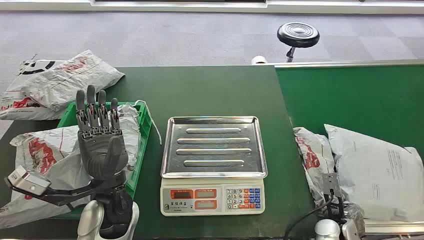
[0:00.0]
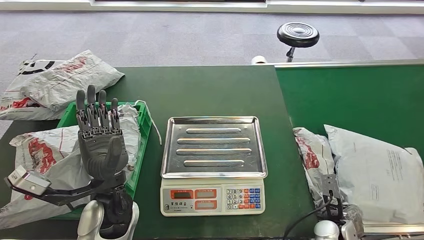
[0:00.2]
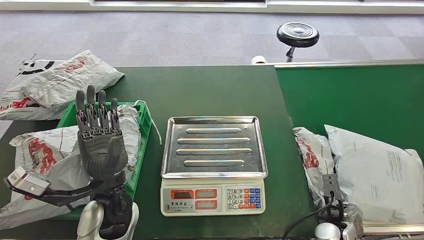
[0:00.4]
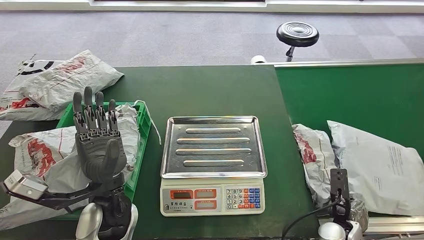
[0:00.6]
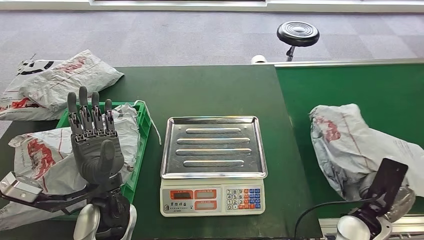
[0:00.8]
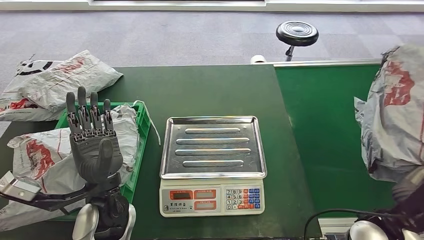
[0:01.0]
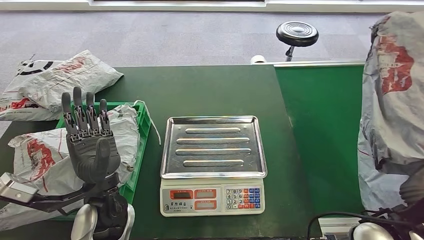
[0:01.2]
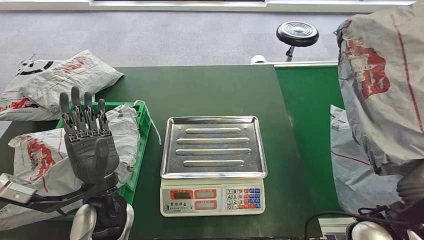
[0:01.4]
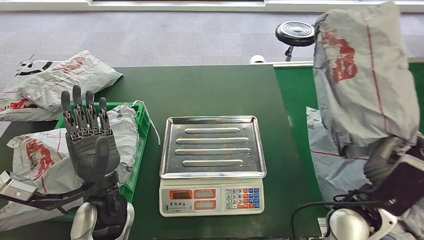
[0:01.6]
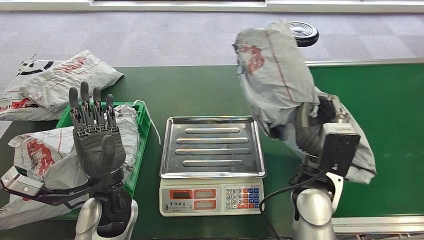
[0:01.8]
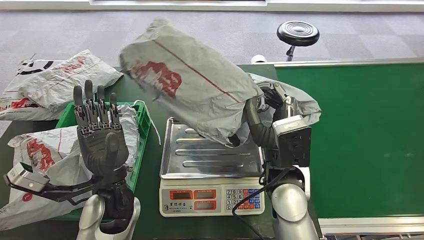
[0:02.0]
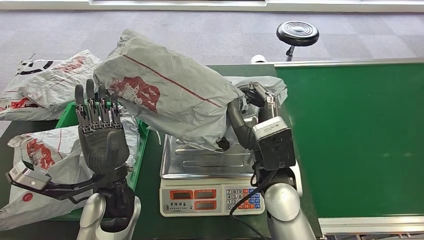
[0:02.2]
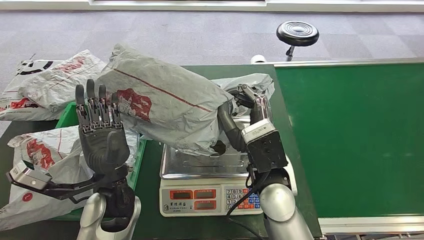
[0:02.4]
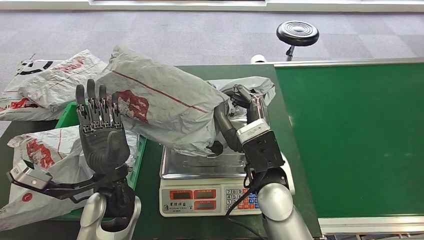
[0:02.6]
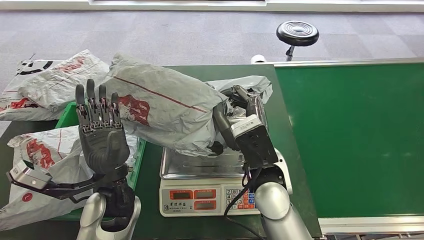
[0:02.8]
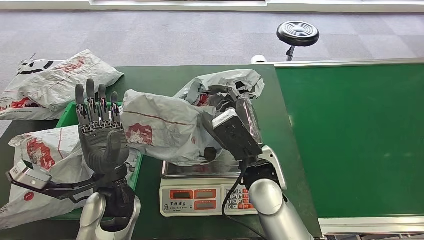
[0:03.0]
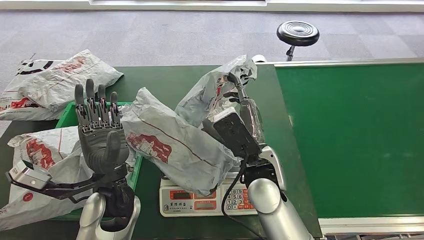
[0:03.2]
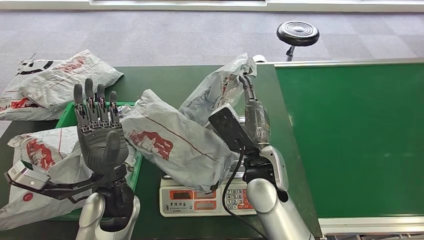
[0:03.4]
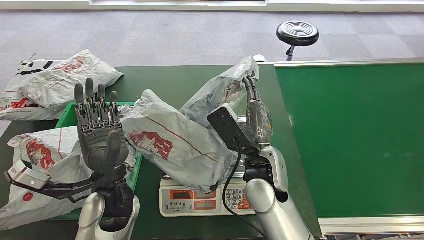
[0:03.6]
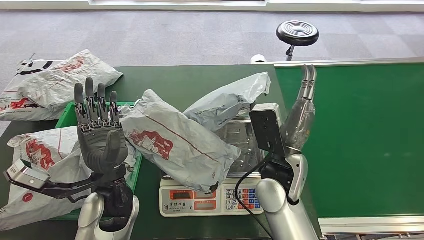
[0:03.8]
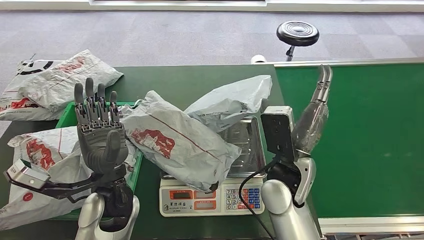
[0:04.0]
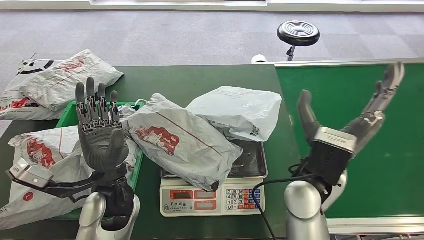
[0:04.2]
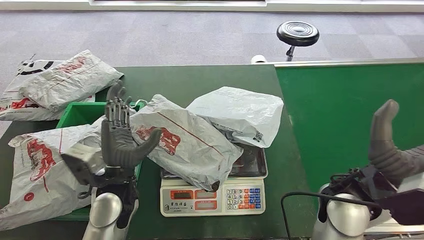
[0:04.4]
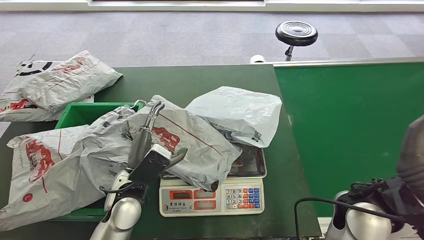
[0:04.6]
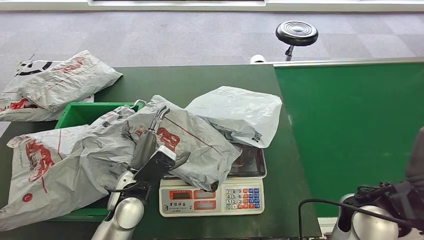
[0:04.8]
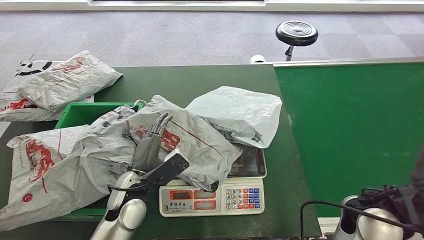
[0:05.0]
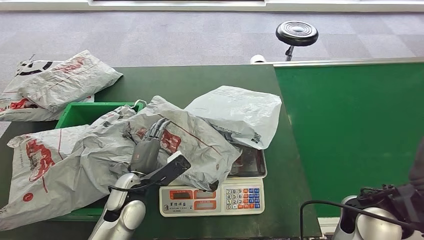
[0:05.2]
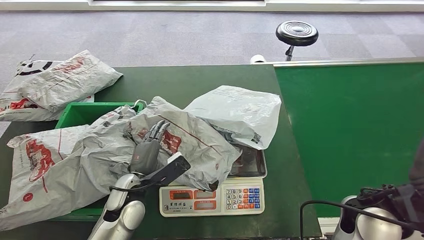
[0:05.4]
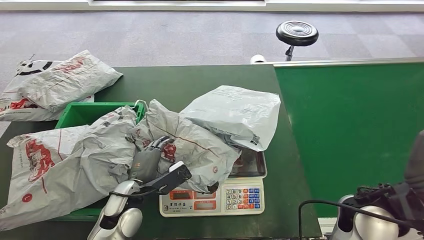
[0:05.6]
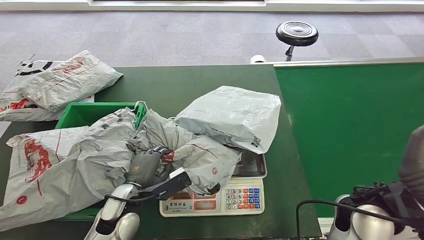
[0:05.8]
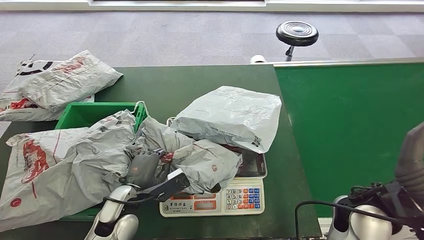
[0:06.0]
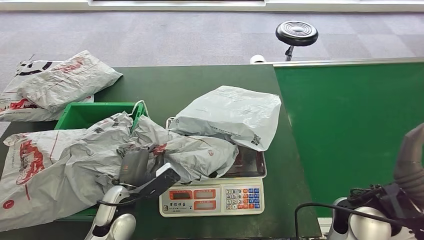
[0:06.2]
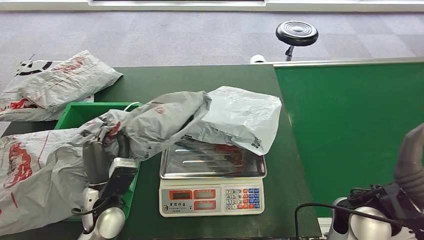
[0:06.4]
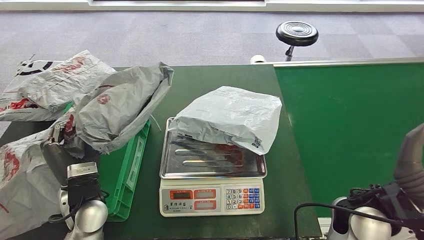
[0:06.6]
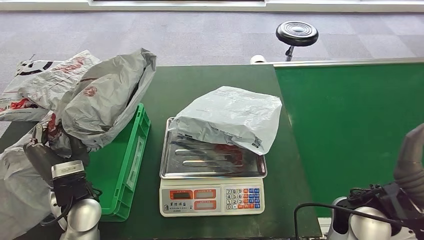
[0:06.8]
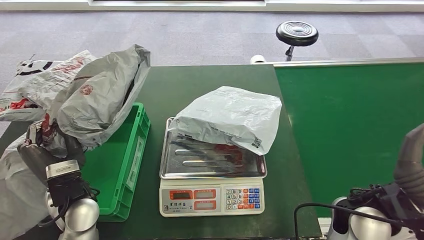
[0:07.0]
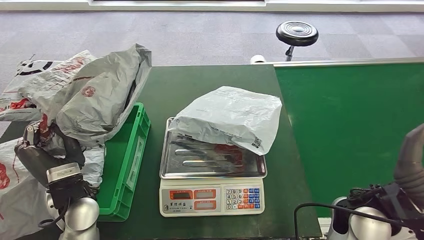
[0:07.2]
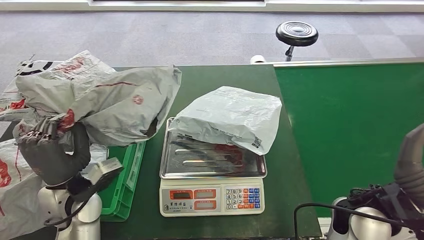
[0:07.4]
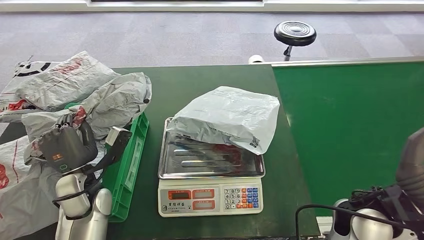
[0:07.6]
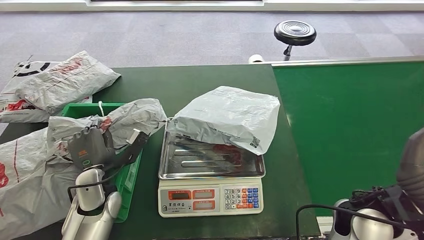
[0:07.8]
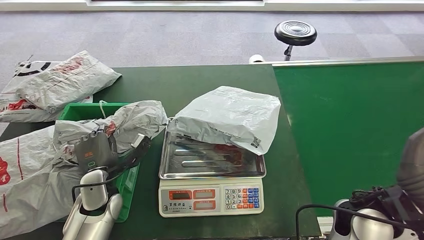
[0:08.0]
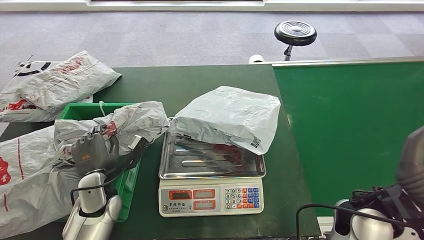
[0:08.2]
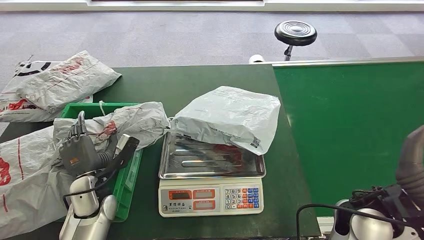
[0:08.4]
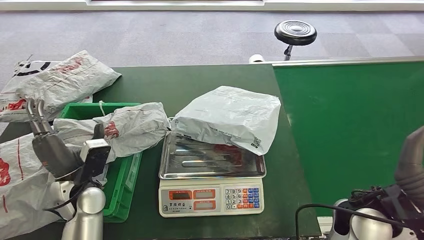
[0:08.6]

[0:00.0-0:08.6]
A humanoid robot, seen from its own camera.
Step, 0:00.0 to 0:01.4: Take the parcel off the conveyor belt.
Step, 0:01.6 to 0:03.4: Place the parcel onto the inbound machine.
Step, 0:03.6 to 0:06.4: Pick up the parcel from the inbound machine.
Step, 0:06.6 to 0:08.6: Put the parcel inside the courier box.

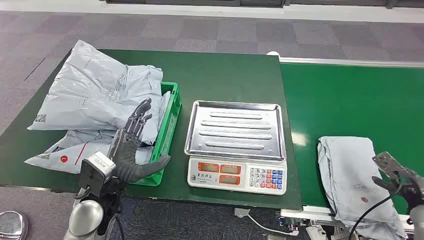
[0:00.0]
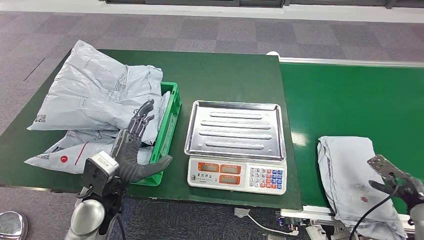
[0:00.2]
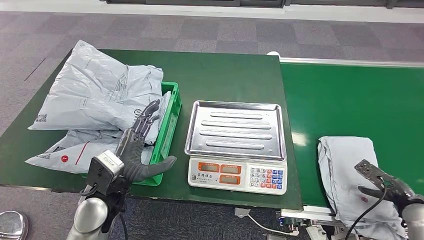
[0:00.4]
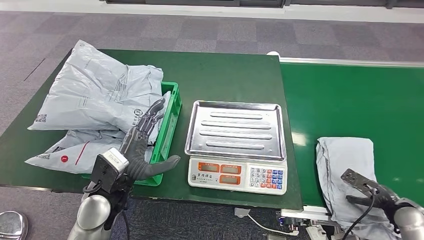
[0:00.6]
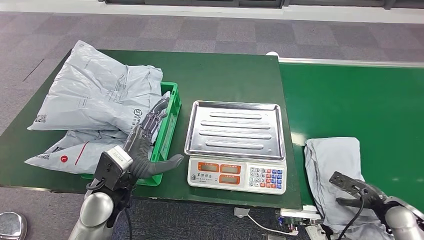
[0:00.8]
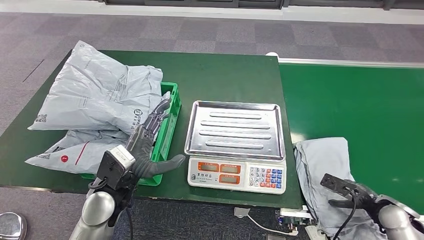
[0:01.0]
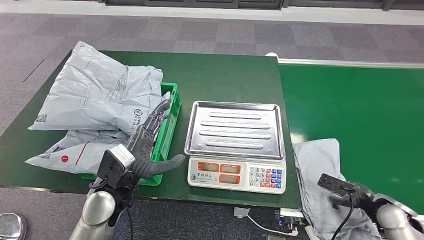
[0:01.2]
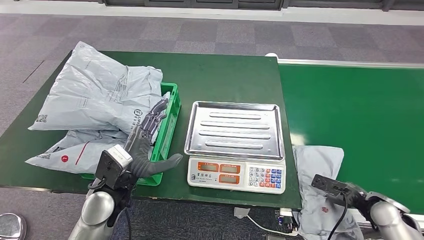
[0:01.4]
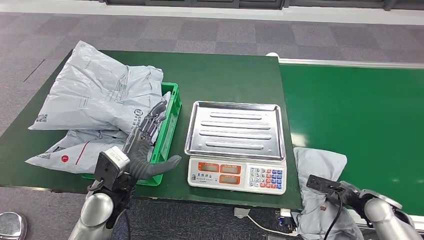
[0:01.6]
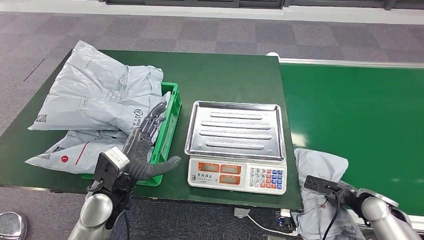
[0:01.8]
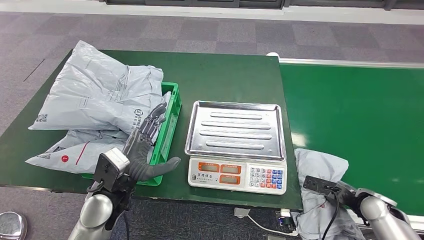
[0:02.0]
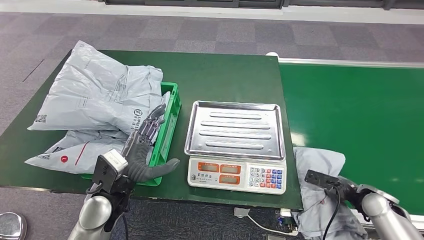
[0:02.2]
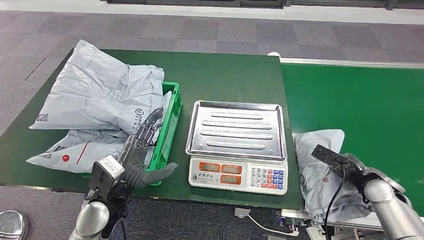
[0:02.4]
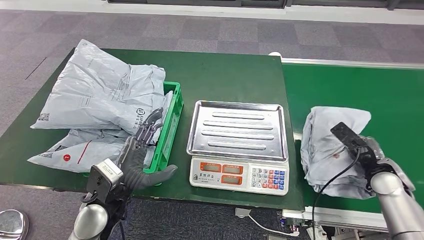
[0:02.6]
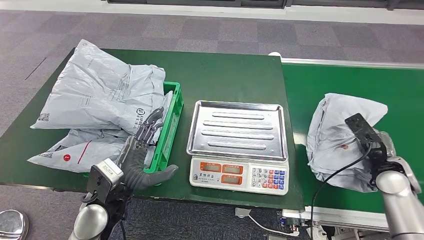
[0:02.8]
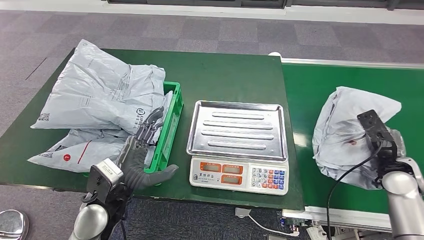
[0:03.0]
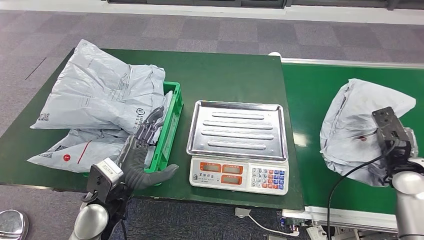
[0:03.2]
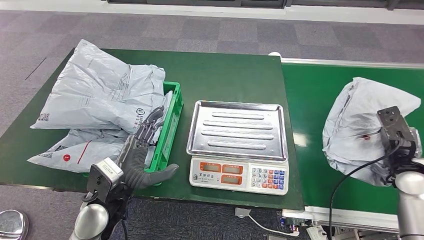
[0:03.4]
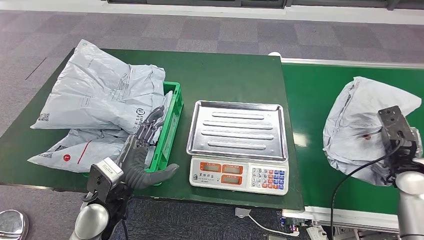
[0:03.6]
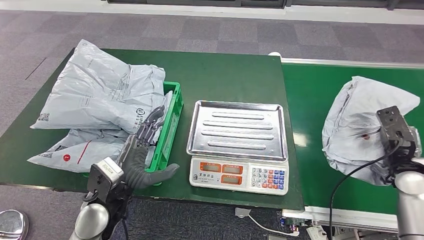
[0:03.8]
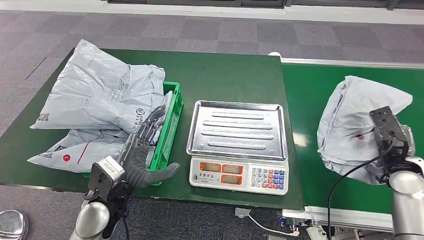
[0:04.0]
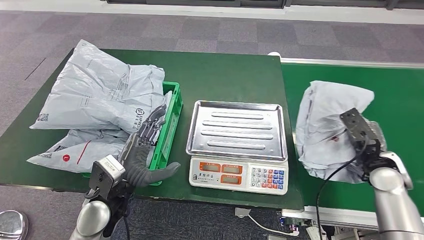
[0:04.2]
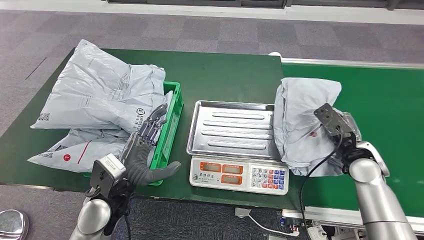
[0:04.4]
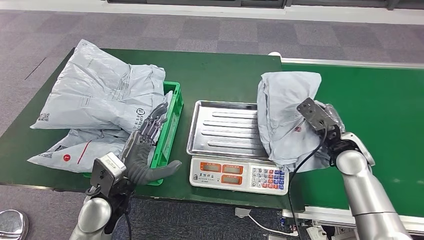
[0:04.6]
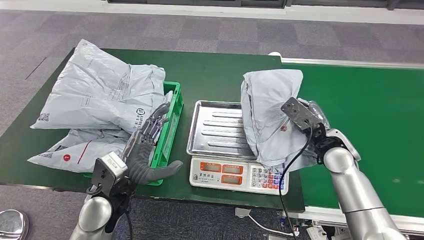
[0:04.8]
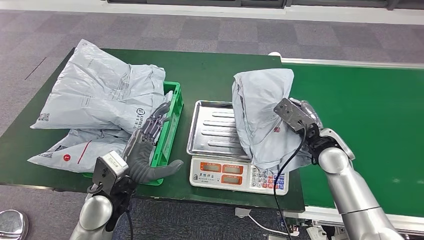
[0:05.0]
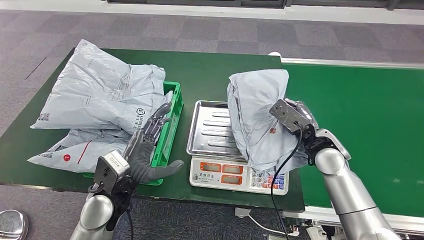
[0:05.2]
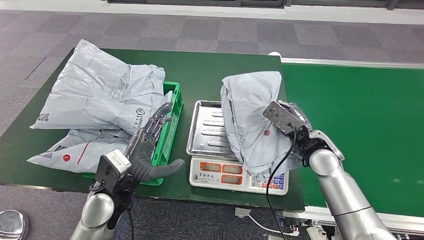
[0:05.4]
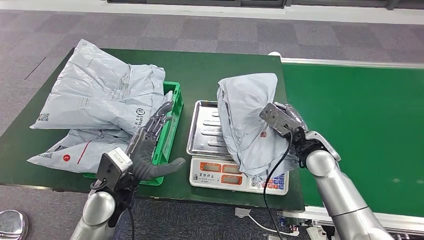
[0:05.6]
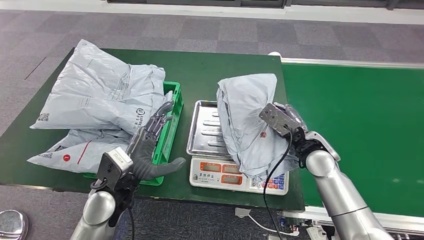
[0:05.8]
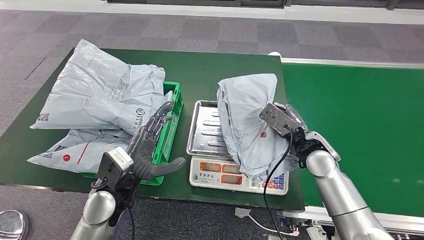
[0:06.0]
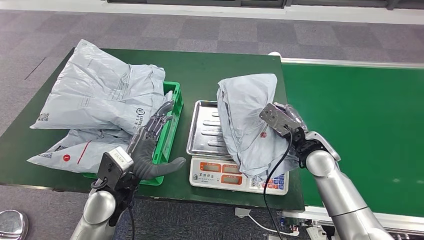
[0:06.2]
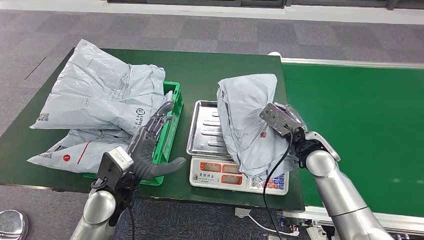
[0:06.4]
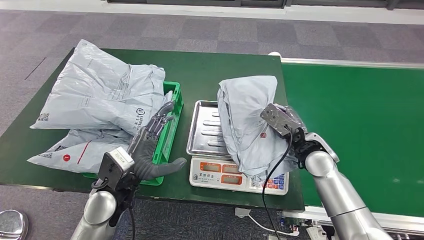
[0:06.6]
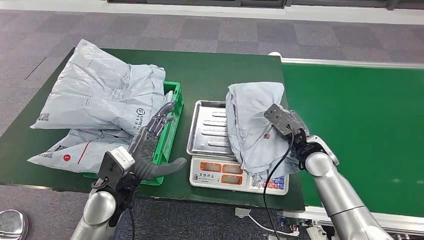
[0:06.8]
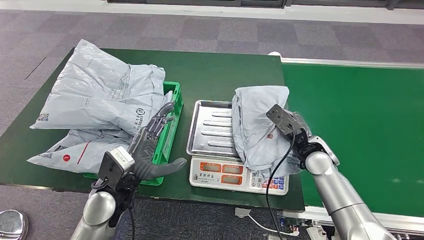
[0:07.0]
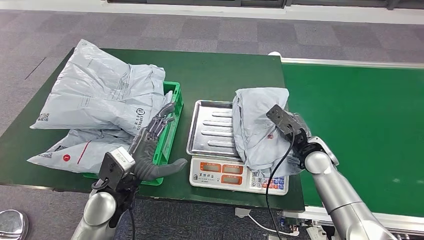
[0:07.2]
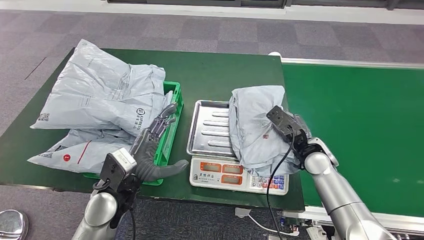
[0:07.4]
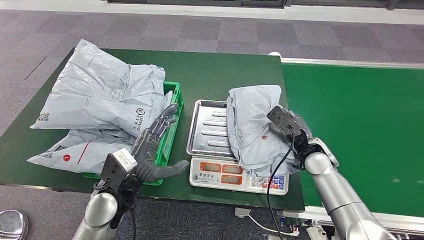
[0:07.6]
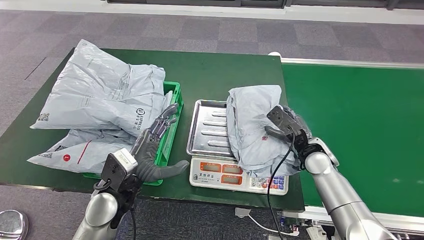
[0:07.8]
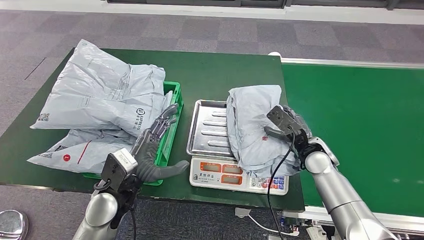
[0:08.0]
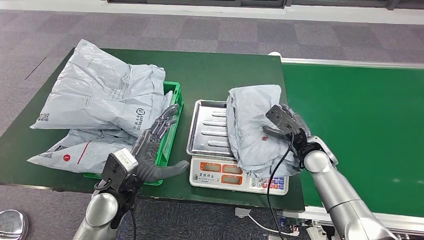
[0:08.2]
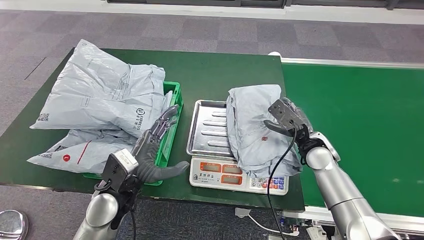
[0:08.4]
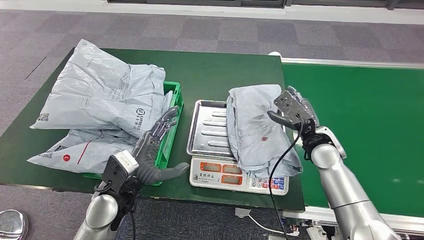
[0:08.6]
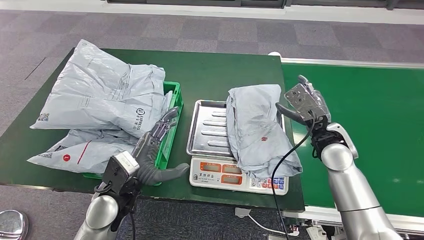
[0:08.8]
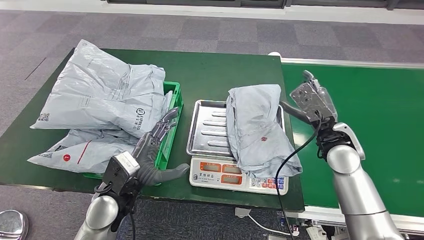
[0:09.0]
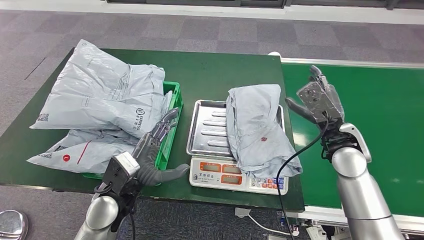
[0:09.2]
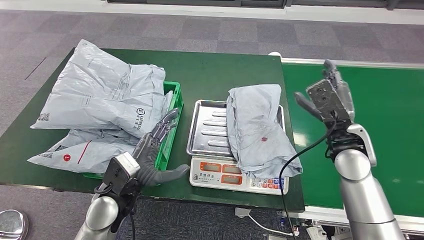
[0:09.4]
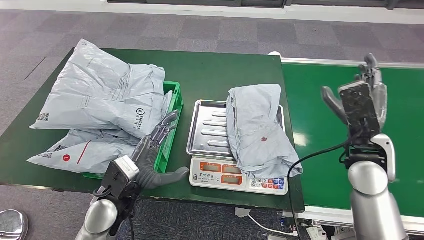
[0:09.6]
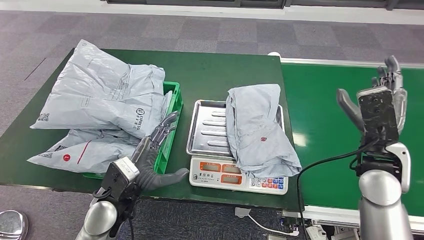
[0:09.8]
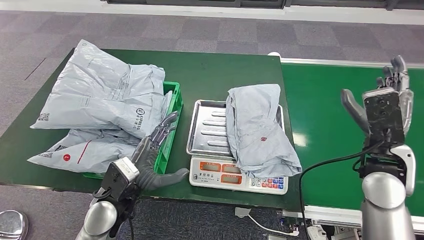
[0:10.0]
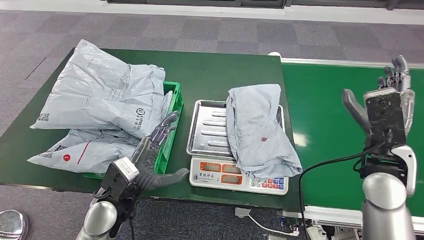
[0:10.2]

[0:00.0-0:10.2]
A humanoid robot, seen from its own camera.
Step, 0:00.0 to 0:03.2: Take the parcel off the conveyor belt.
Step, 0:03.4 to 0:10.0: Place the parcel onto the inbound machine.
0:03.0 to 0:04.4: The right hand goes some 10 cm to the left.
0:05.8 to 0:07.2: There are only small adjustments of the hands.
0:07.2 to 0:08.8: The right hand is displaced upward by roughly 5 cm.
0:08.8 to 0:10.2: The right hand shifts roughly 10 cm backward and upward.
